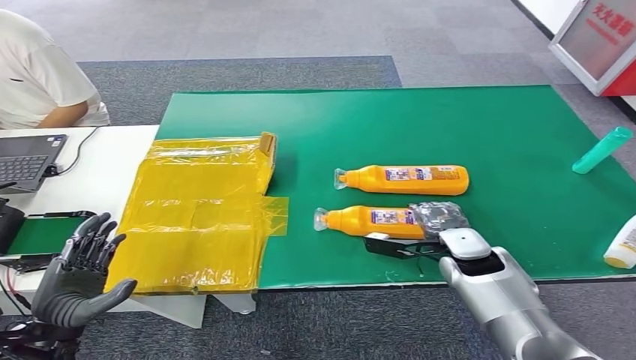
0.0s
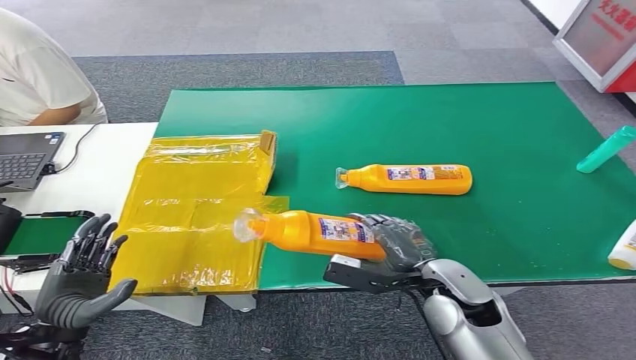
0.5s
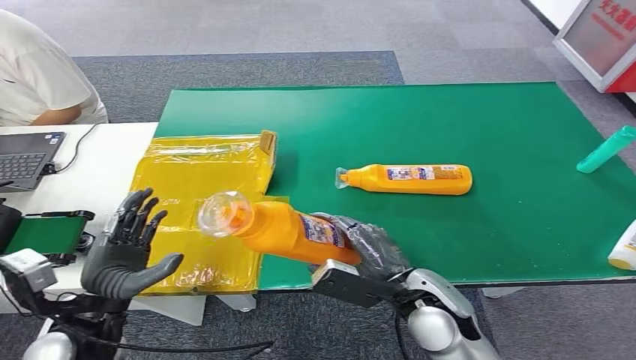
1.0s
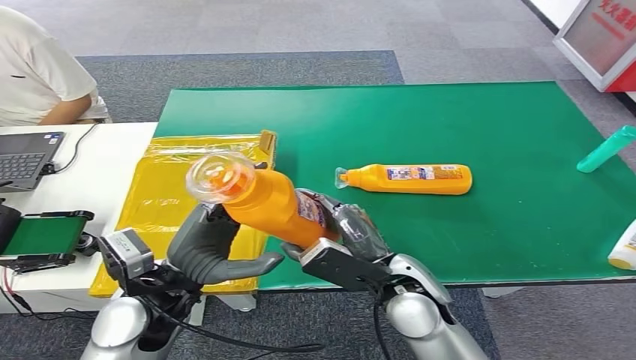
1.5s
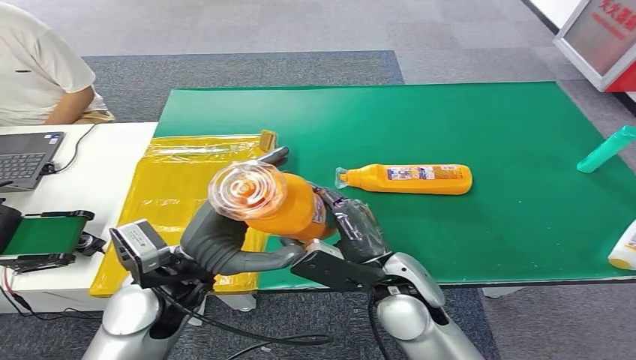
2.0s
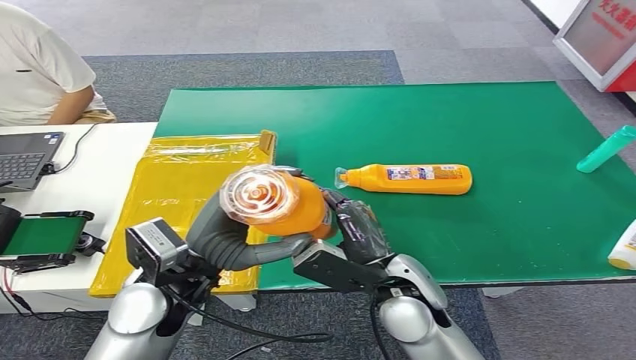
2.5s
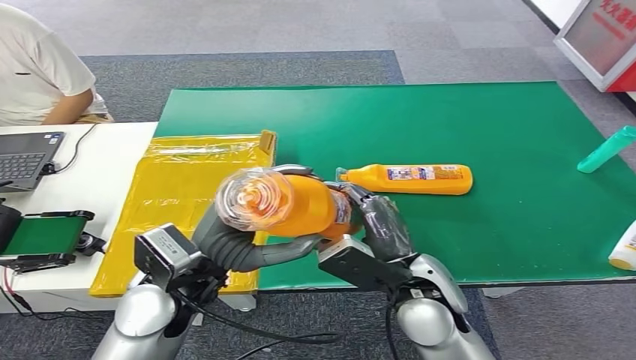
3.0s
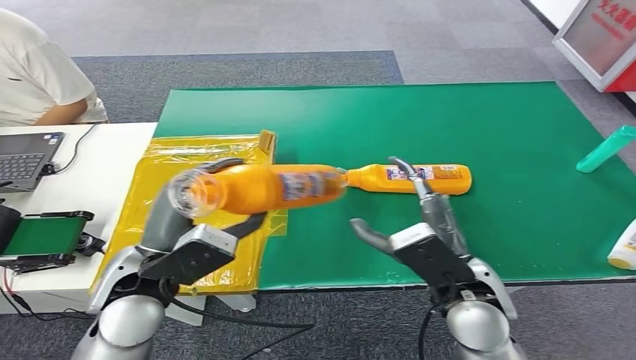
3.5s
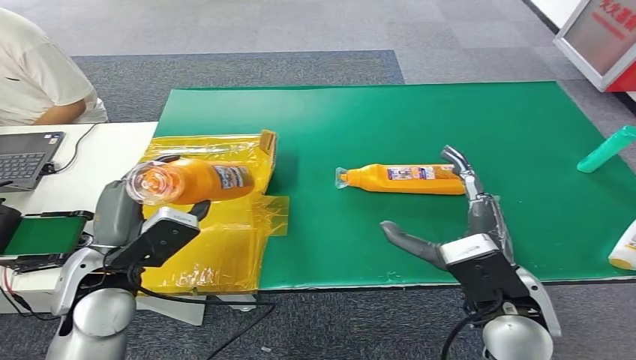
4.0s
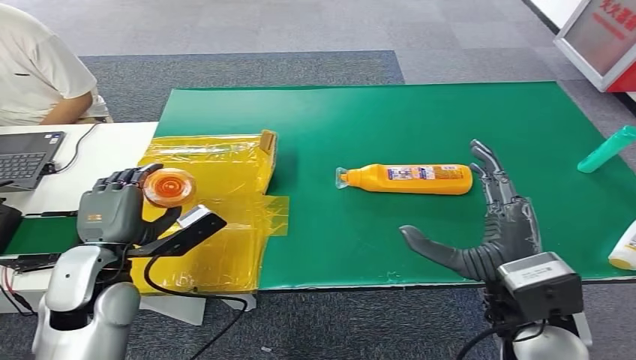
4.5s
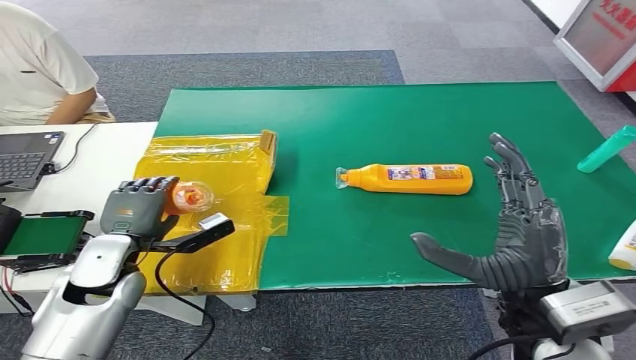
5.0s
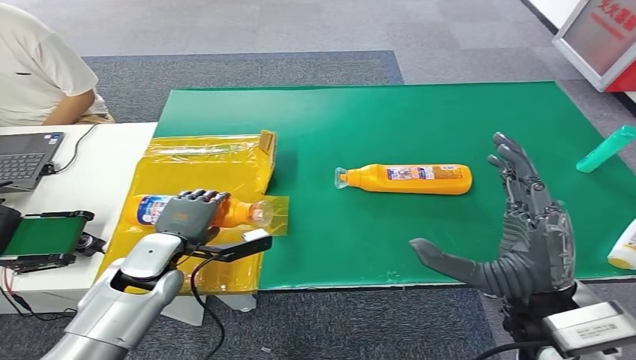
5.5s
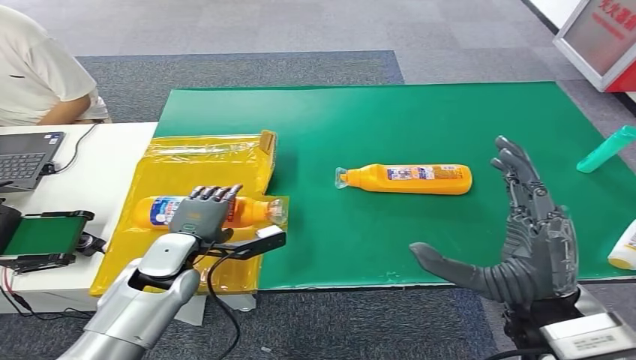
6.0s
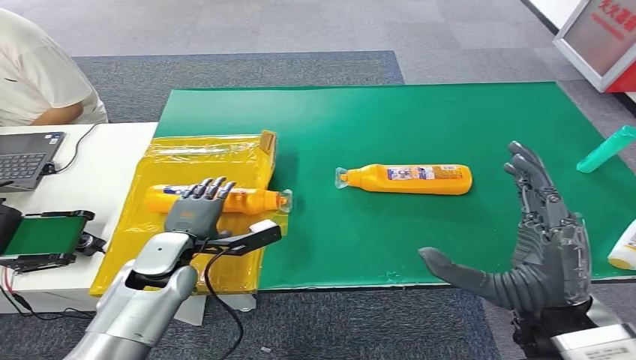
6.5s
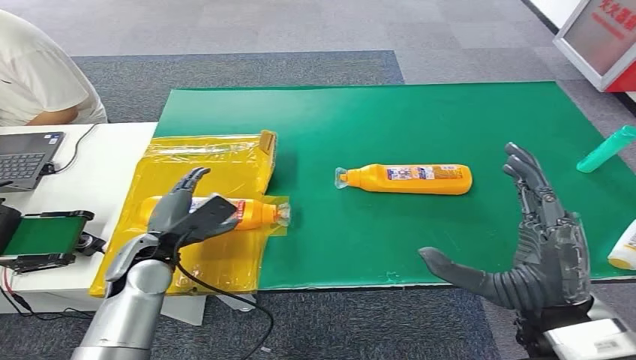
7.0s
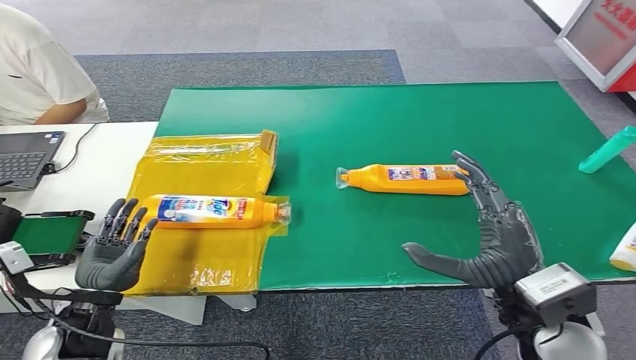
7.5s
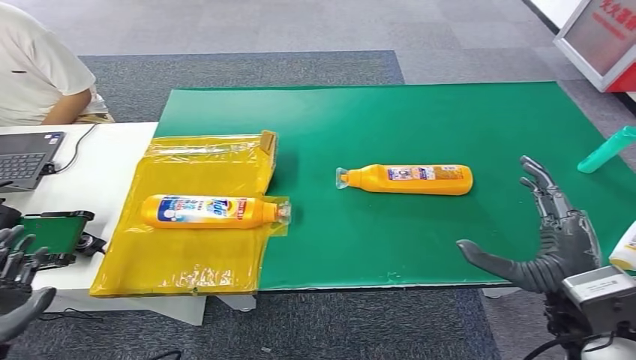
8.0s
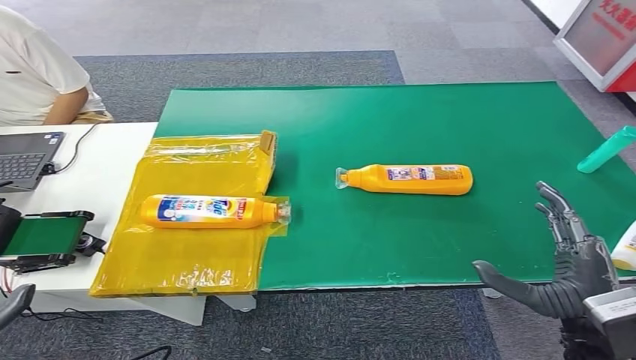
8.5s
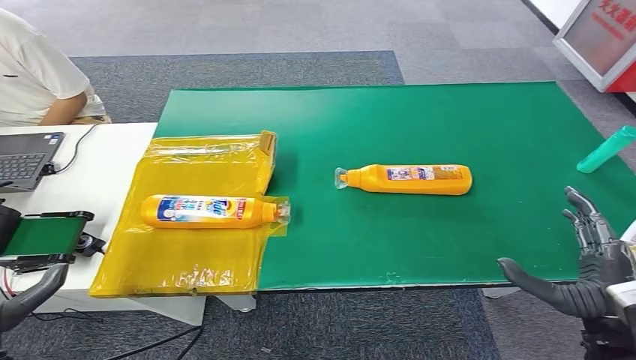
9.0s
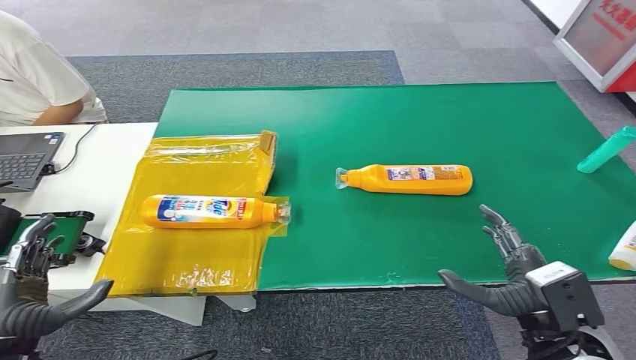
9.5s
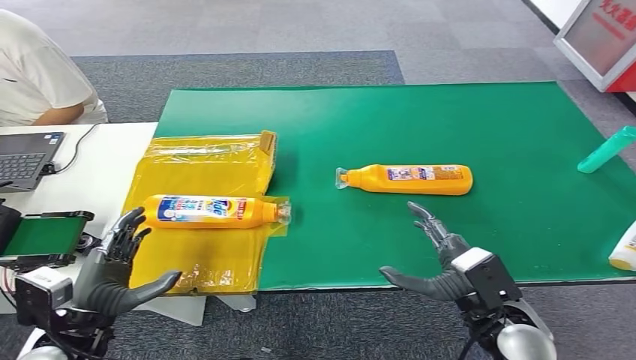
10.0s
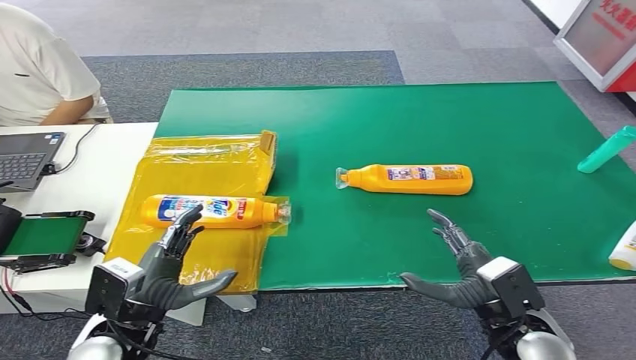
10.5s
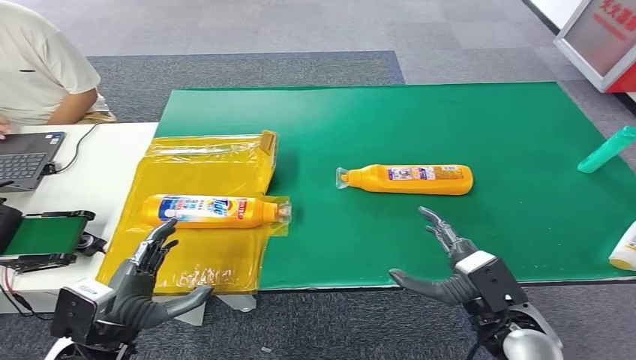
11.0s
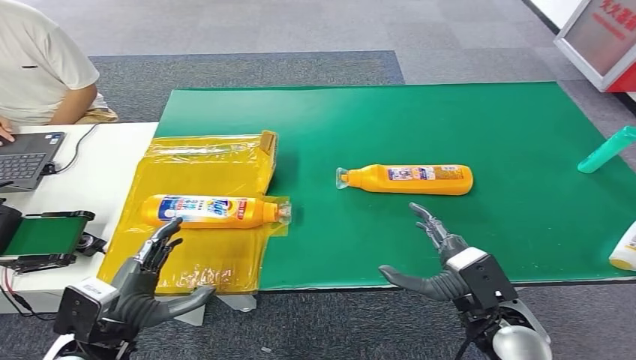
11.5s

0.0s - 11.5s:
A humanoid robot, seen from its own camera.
Step, 1.0s - 11.5s: Turn the bottle to the front side.
4.0s - 6.0s: The right hand shifts by some 5 cm, while the left hand goes roughly 10 cm downward and forward.
6.0s - 7.5s: The left hand shifts some 15 cm backward and to the left.
7.5s - 9.5s: The right hand is displaced downward by approximately 5 cm, while the left hand moves backward, roughly 5 cm.
9.5s - 11.5s: The right hand goes roughly 5 cm to the left, while the left hand heads to the right, covering roughly 10 cm.
